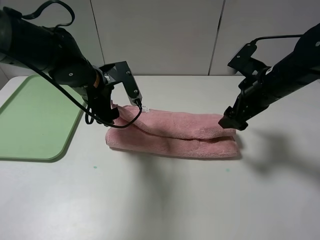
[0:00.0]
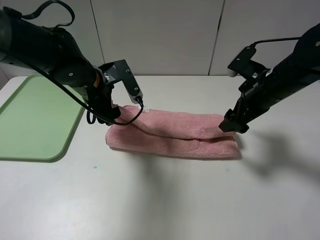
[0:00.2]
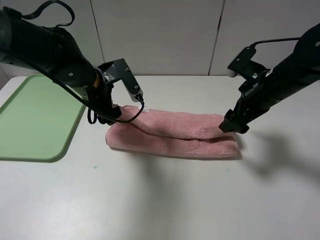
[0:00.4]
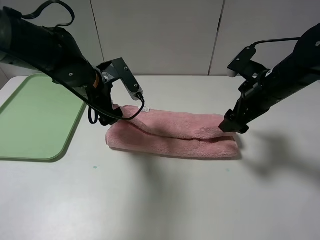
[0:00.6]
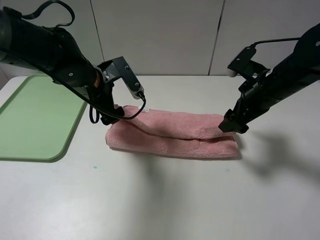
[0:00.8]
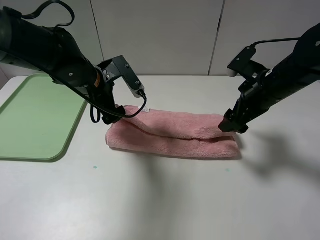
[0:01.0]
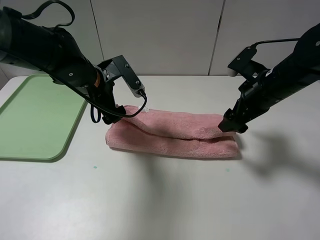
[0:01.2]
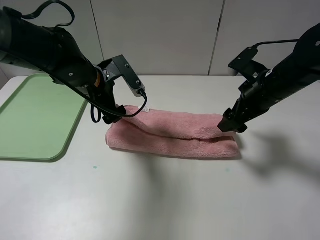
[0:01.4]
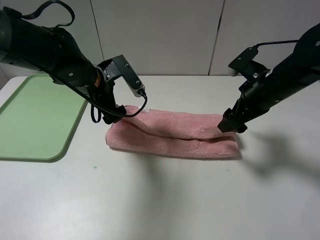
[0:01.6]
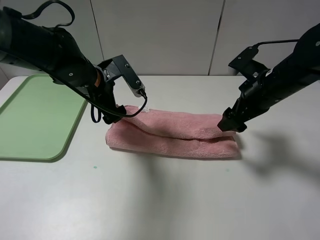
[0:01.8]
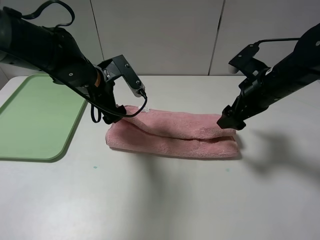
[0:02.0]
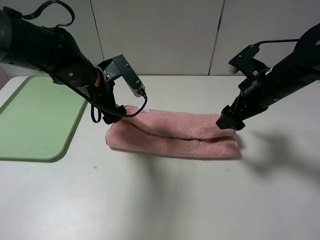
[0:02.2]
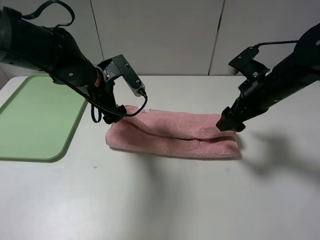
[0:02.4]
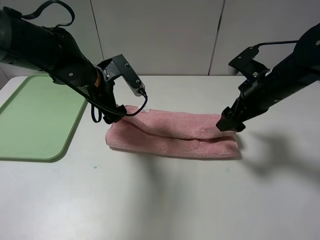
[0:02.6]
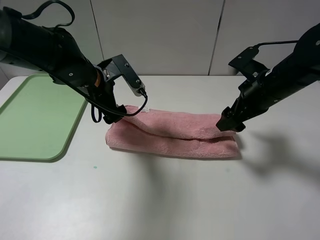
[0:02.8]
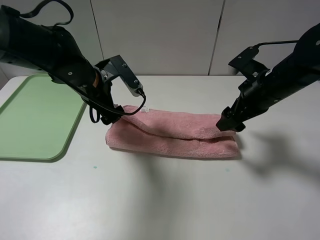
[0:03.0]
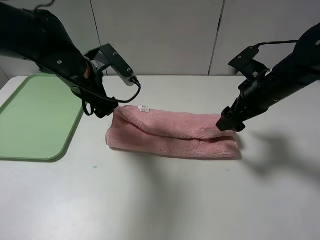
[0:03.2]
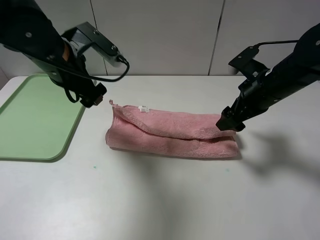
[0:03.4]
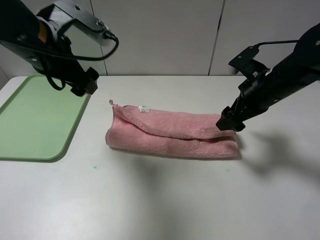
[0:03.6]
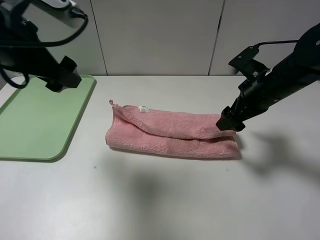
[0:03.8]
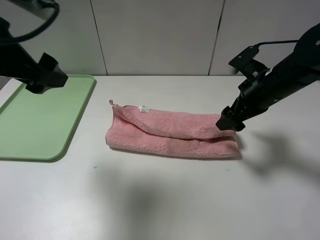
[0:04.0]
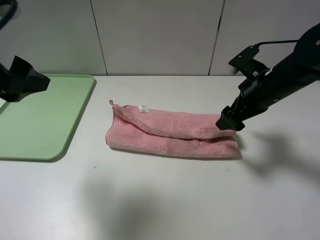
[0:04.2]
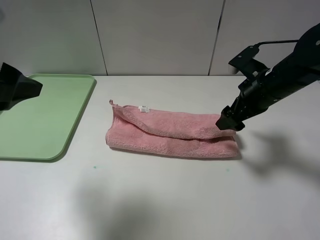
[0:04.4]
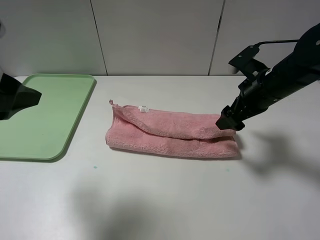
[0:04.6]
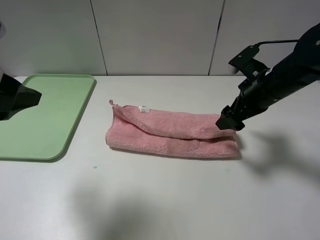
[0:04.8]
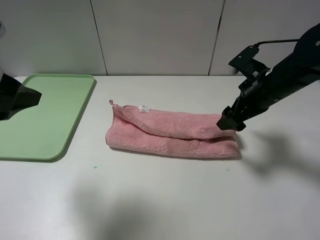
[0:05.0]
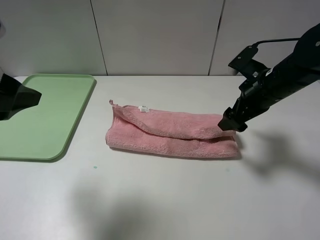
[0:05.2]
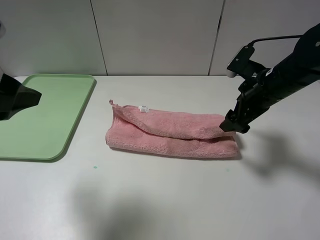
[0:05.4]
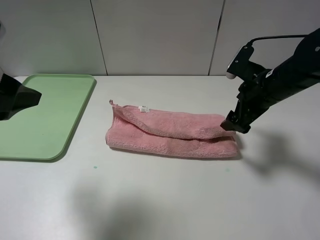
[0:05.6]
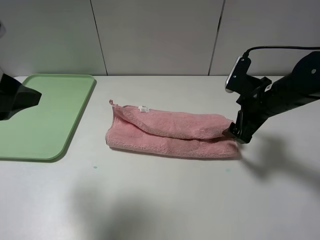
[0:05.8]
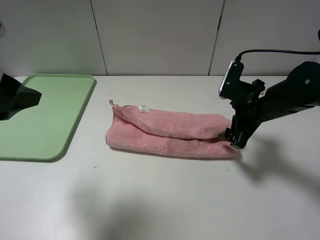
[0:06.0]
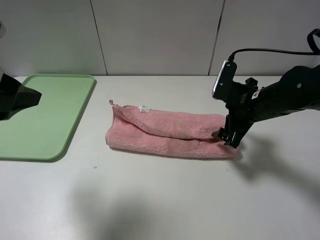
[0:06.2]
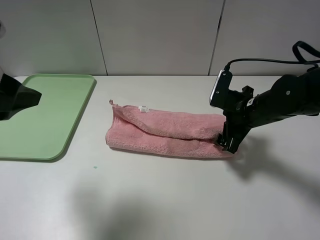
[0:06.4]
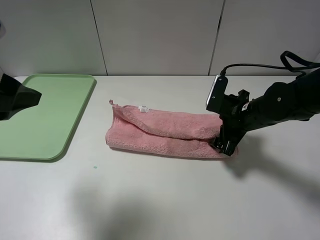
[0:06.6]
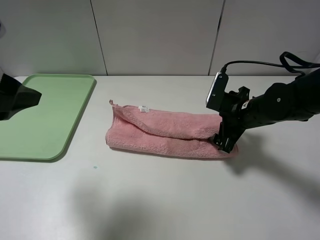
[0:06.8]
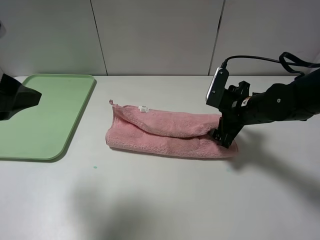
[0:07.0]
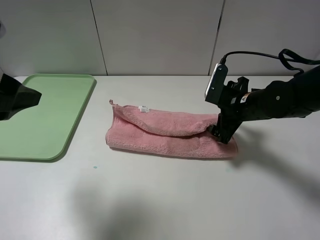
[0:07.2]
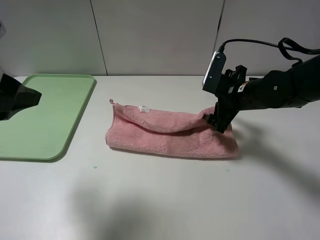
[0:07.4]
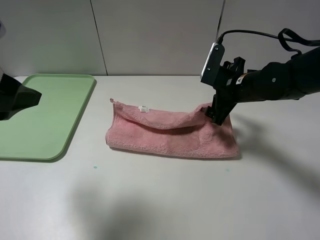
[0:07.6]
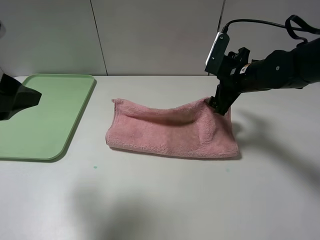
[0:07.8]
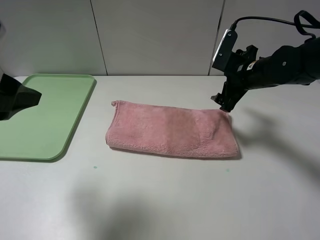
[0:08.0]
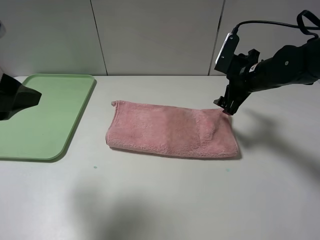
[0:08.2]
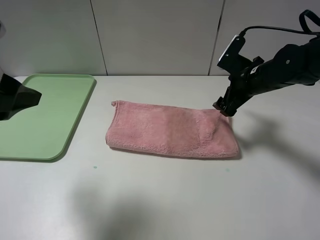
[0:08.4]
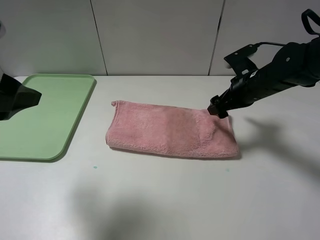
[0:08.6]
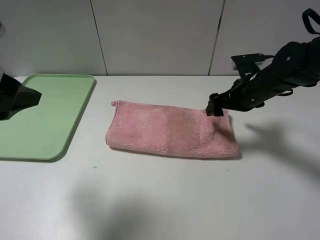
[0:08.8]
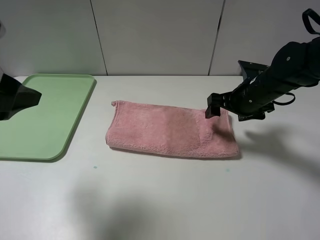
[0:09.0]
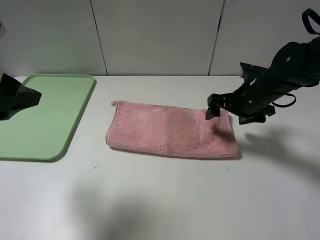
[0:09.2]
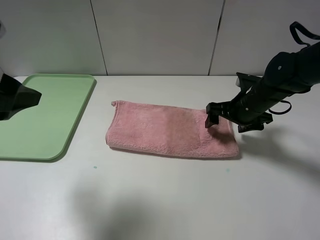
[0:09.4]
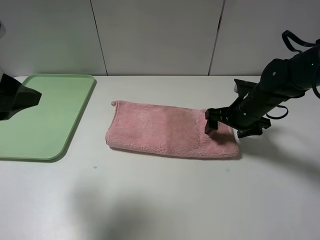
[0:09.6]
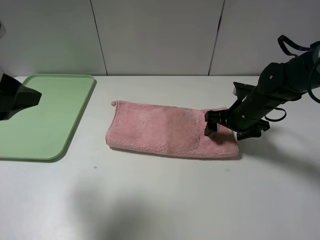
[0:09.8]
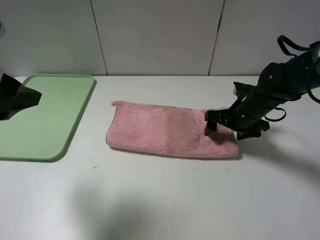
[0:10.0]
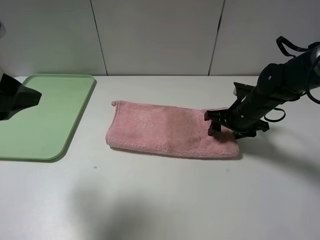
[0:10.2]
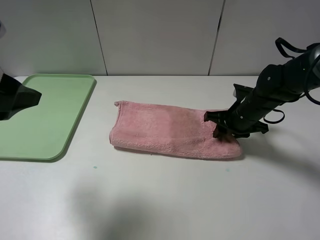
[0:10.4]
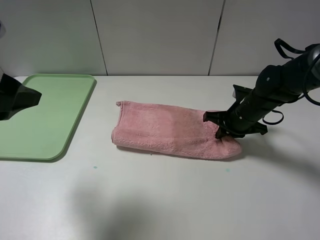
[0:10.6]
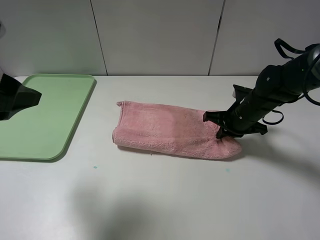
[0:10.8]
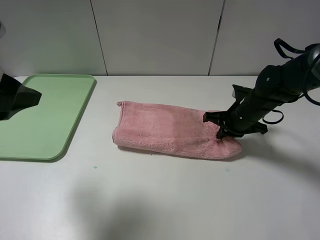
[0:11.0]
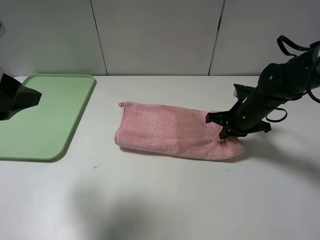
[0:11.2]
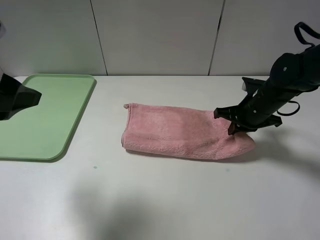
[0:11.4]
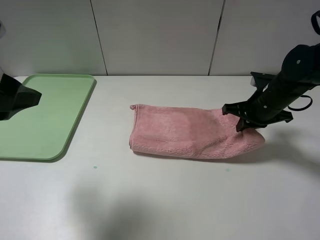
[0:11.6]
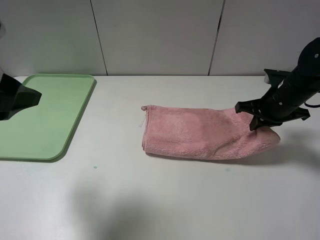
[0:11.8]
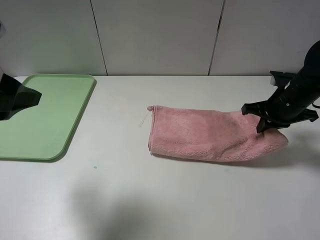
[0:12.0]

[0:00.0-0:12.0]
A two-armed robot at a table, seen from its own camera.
Step, 0:00.0 to 0:08.0: Fold the pink towel upwards.
0:00.0 to 0:01.6: The grippers make only small movements.
0:01.6 to 0:03.0: Both grippers stay put.
0:03.0 to 0:04.4: The left gripper shifts some 25 cm backward, upward and to the left.
0:06.0 to 0:07.6: The right gripper goes some 5 cm forward.
0:09.0 to 0:10.4: The right gripper heads downward, covering approximately 5 cm, and closes.
0:10.4 to 0:12.0: The right gripper travels to the right and upward by approximately 10 cm.

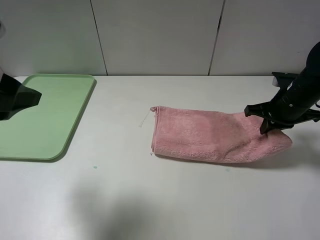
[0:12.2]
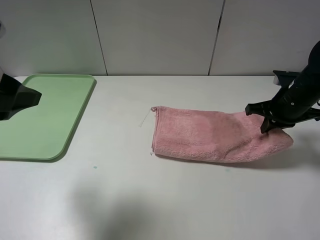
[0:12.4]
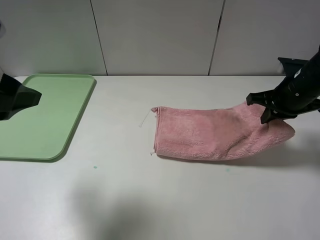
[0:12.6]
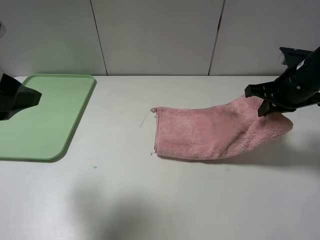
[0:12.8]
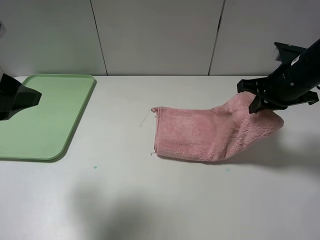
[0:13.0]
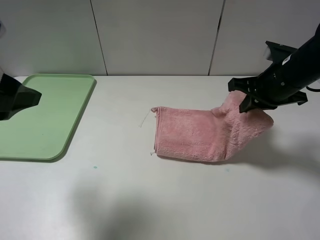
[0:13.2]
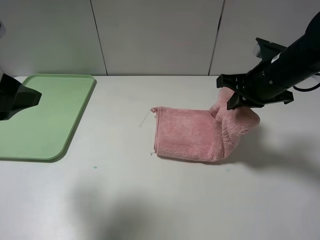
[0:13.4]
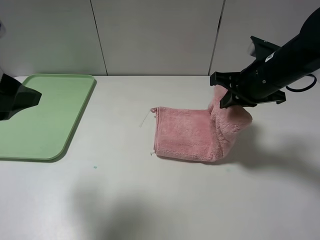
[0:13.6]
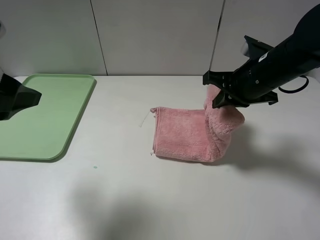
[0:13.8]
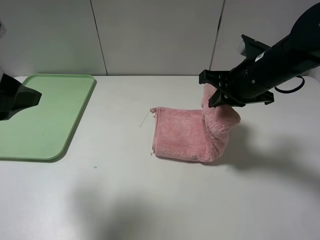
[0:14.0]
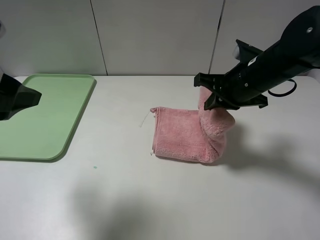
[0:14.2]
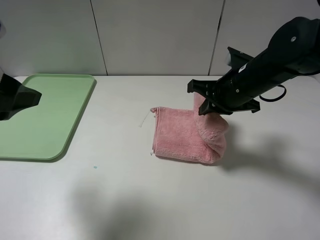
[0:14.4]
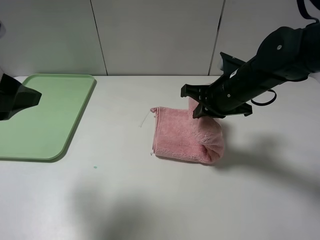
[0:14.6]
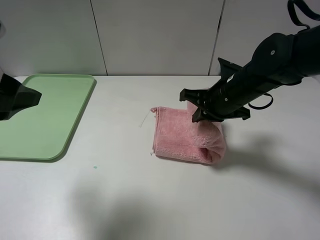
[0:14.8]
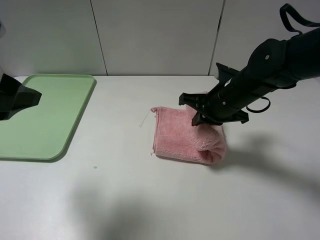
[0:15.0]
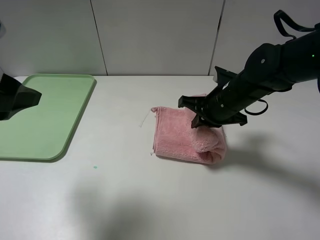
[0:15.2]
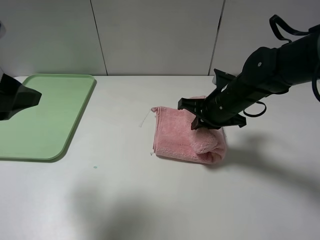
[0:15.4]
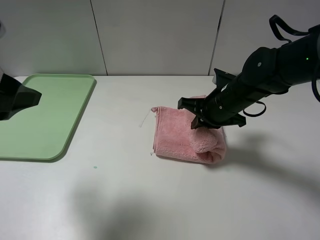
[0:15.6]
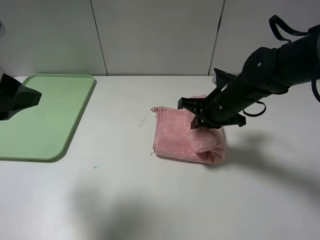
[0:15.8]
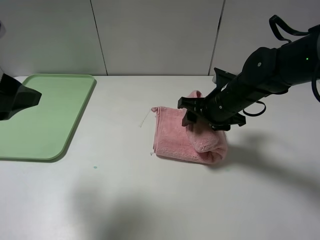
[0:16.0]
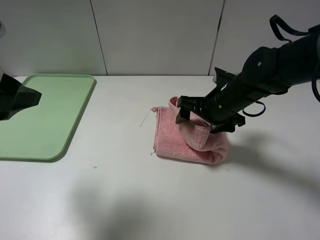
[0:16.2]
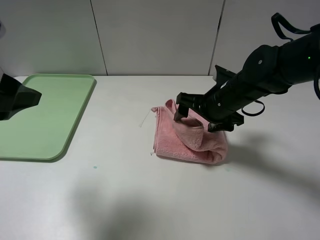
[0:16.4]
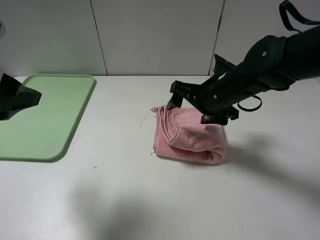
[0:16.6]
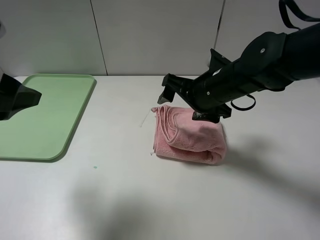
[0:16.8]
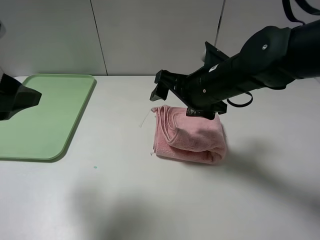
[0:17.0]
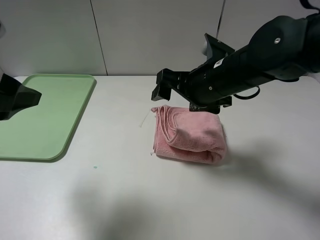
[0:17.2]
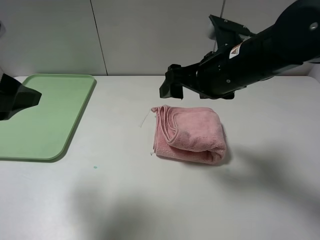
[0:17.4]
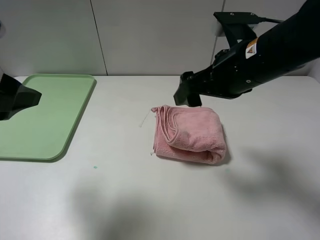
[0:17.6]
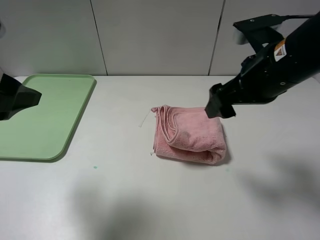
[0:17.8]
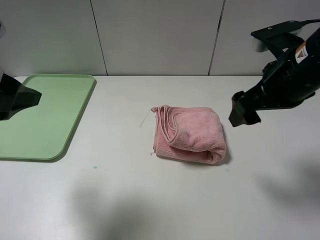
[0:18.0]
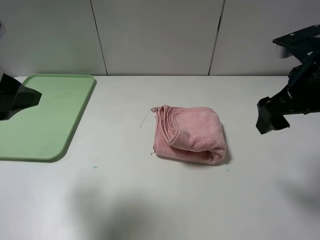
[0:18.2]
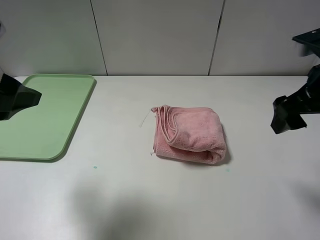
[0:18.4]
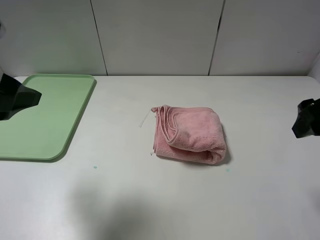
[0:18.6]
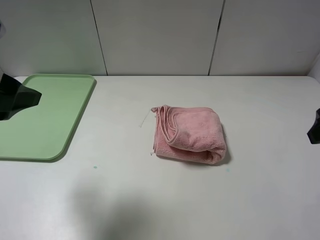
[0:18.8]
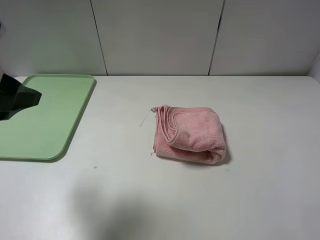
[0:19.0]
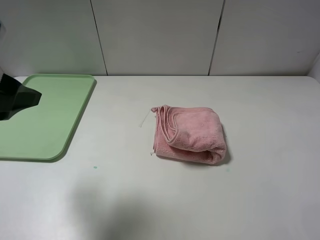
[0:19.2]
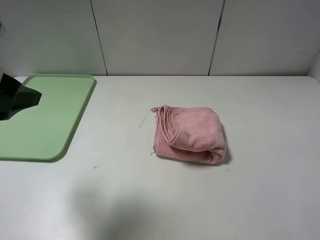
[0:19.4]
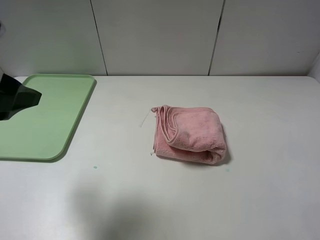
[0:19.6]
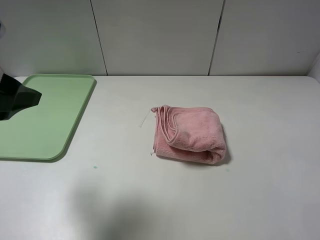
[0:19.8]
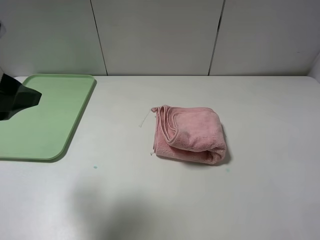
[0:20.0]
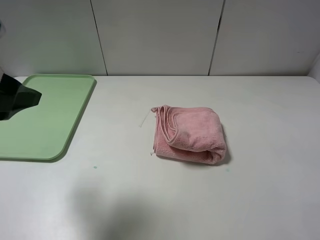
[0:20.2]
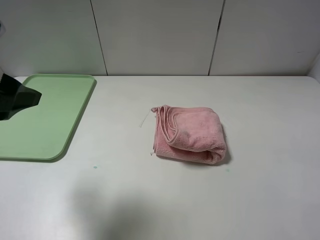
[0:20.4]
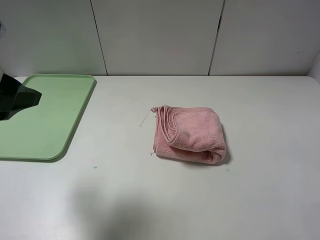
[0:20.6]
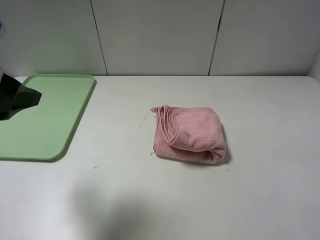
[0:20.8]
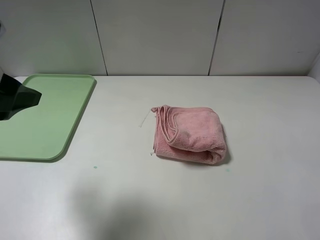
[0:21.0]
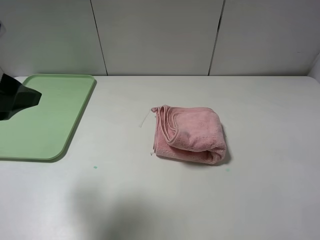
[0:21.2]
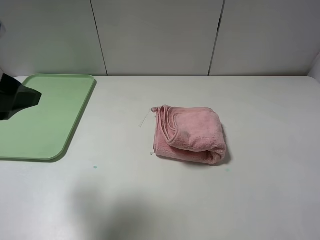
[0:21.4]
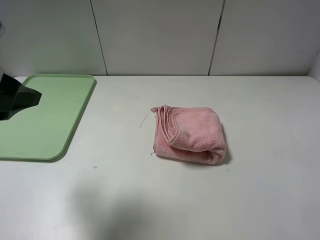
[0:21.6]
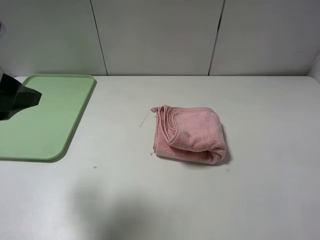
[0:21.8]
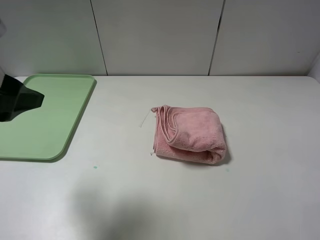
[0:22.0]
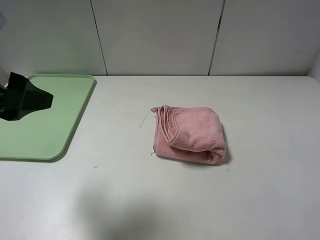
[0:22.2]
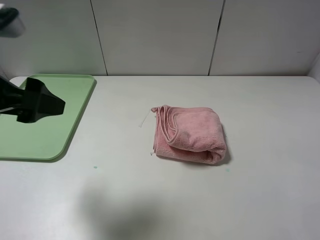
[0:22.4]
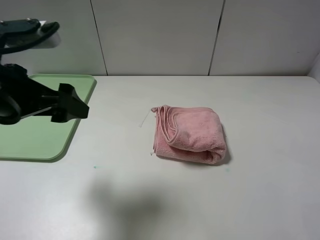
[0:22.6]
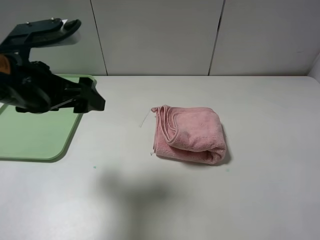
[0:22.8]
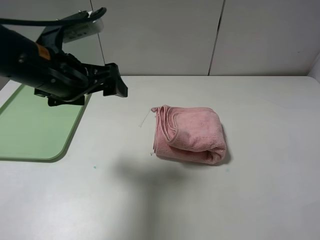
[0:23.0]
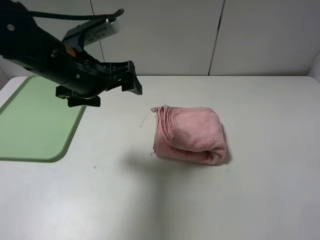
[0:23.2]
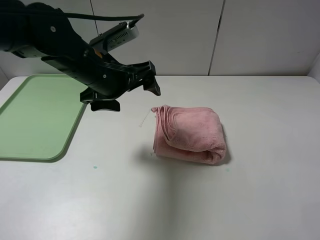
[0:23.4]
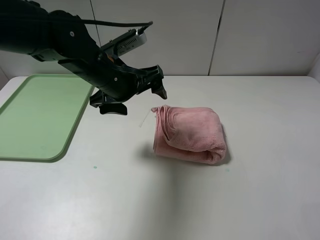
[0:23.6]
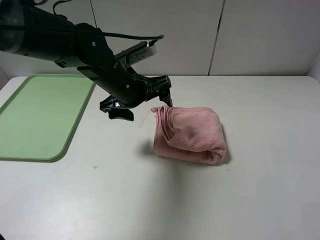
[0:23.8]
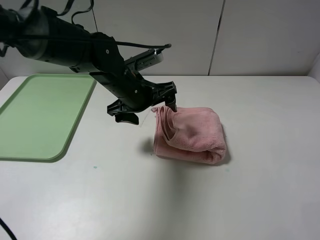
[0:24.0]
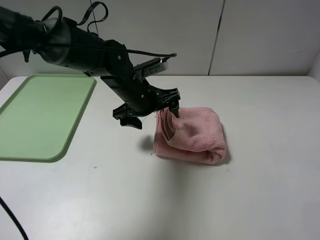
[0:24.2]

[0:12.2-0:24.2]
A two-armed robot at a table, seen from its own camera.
Step, 0:12.2 to 0:16.6: Fold the pink towel from right to left with right gripper.
0:12.2 to 0:13.8: The right gripper moves to the left and upward, about 10 cm.
0:13.8 to 0:15.2: The right gripper moves downward, roughly 5 cm.
0:15.2 to 0:16.6: The right gripper opens up.
0:16.6 to 0:18.2: The right gripper shifts roughly 15 cm to the right, upward and backward.
0:18.2 to 0:19.8: The right gripper goes roughly 20 cm backward and to the right.
0:21.2 to 0:22.6: The left gripper shifts by roughly 5 cm.
0:22.6 to 0:24.2: The left gripper moves to the right, forward and downward, approximately 25 cm.
